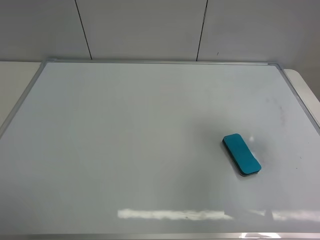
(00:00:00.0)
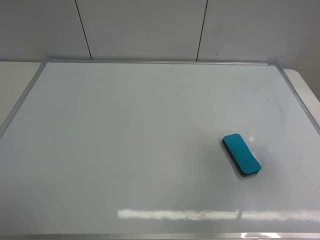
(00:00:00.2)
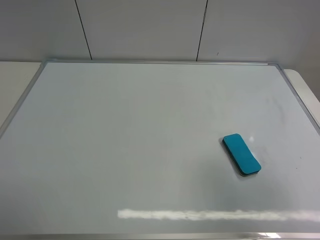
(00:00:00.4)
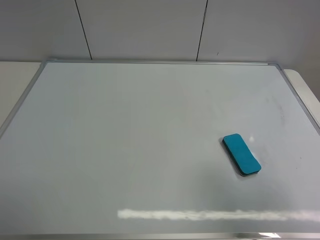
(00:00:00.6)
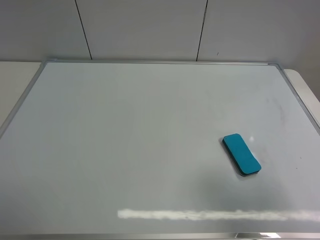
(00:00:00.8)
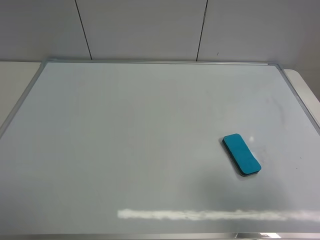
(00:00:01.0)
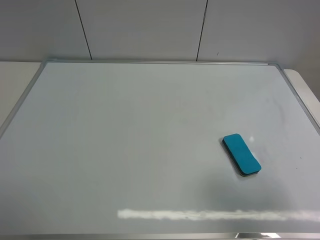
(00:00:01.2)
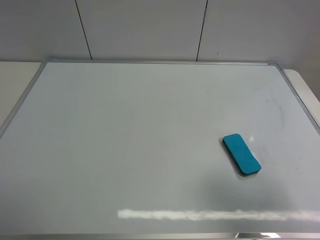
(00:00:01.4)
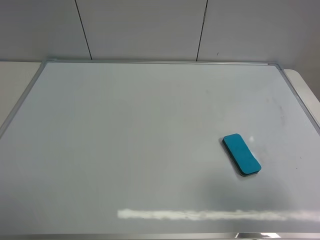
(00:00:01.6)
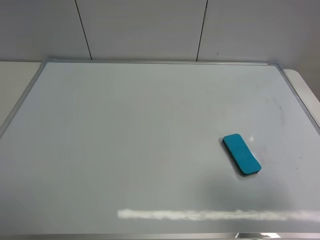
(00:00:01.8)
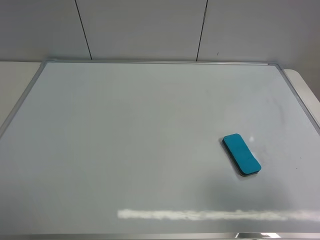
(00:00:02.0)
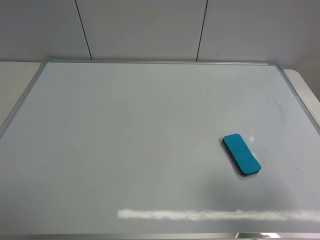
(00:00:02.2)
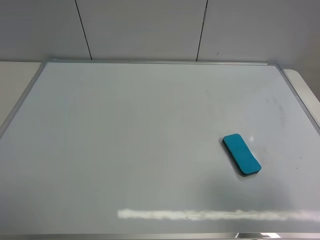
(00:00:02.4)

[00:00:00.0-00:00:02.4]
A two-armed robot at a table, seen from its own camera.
Task of the whole recording: use the left gripper to place the eraser in the right, use the right gripper to pick up the eraser, wipe the notes on the whiteboard clean, and then put it down.
00:00:00.0 to 00:00:01.2: The right gripper moves backward, roughly 15 cm.
00:00:01.2 to 00:00:02.4: Neither gripper changes place.
